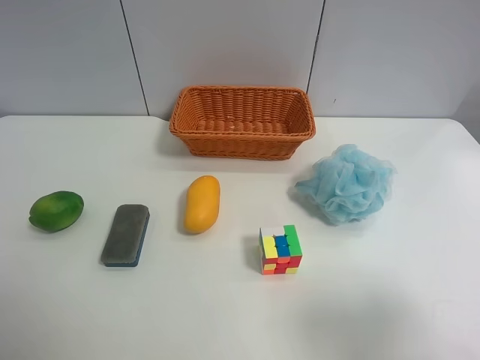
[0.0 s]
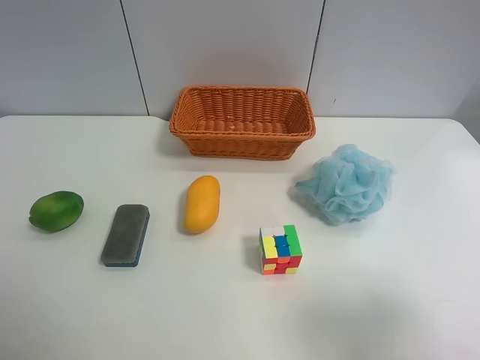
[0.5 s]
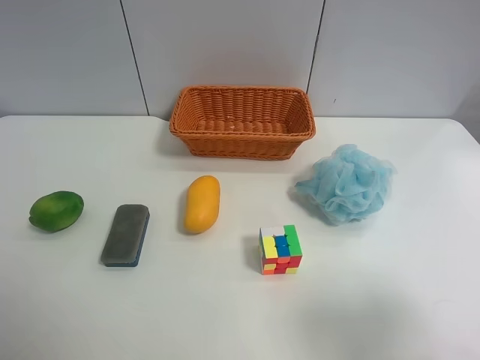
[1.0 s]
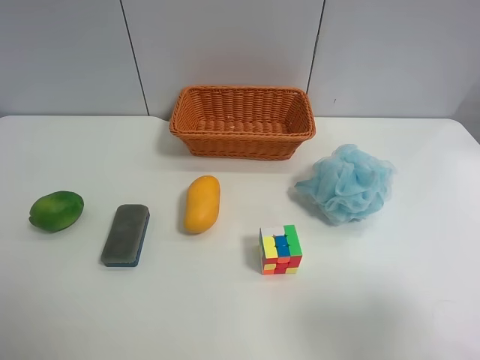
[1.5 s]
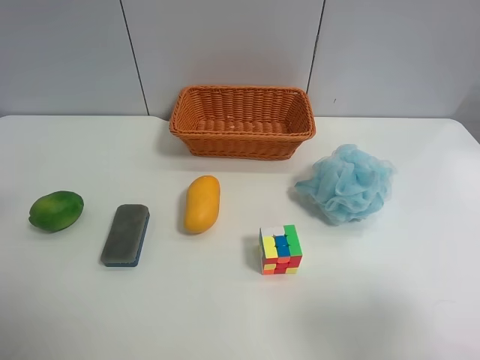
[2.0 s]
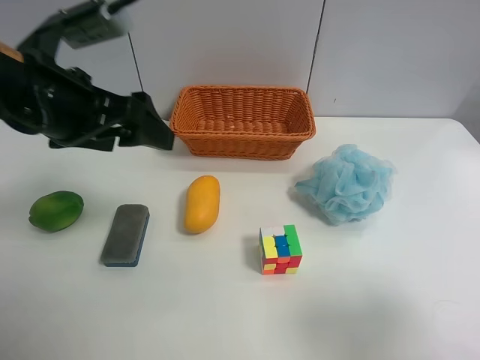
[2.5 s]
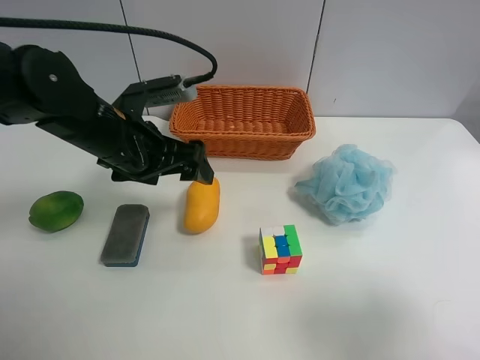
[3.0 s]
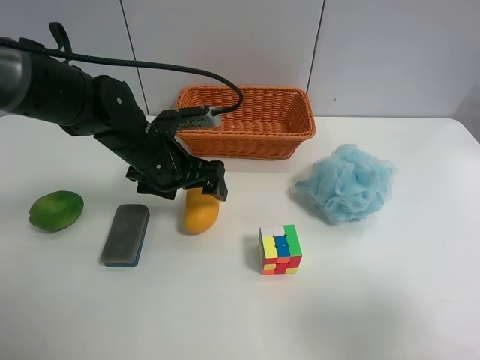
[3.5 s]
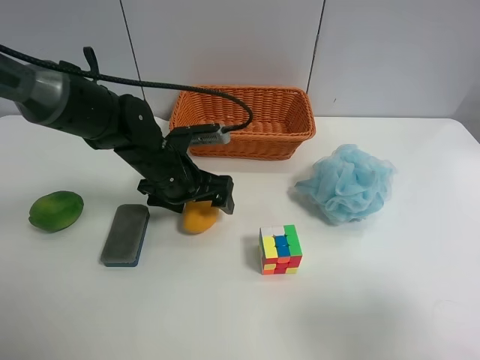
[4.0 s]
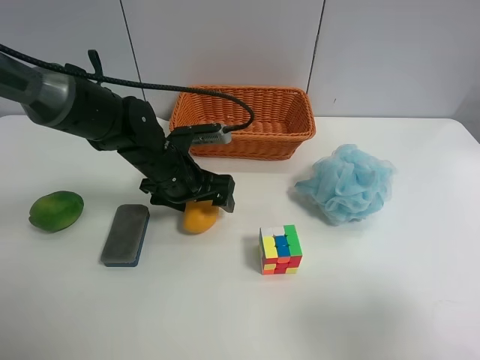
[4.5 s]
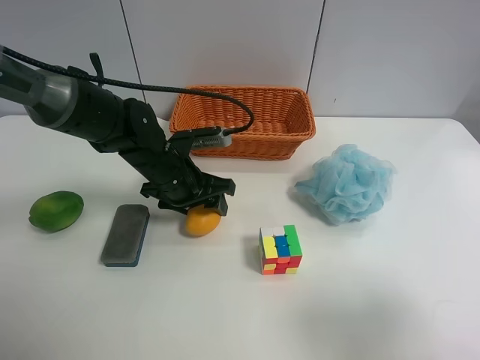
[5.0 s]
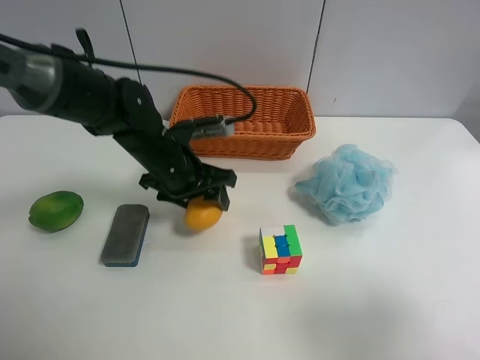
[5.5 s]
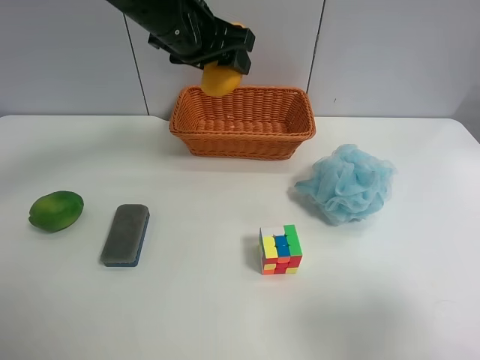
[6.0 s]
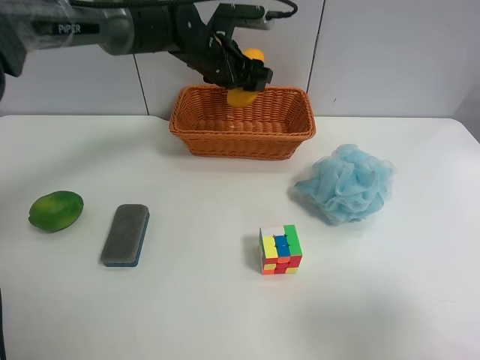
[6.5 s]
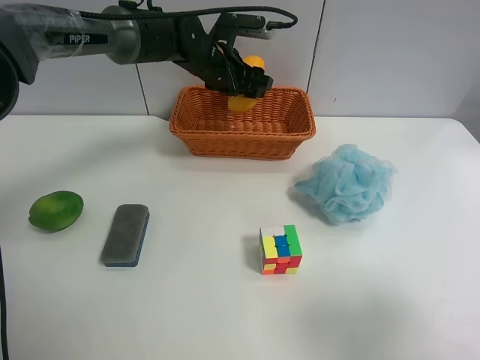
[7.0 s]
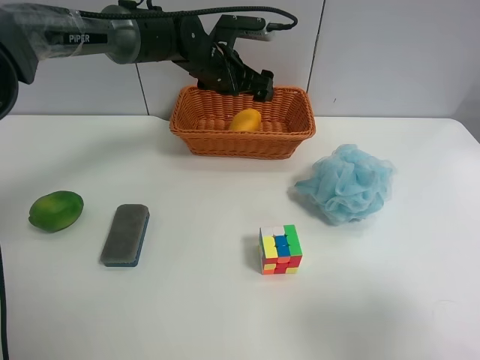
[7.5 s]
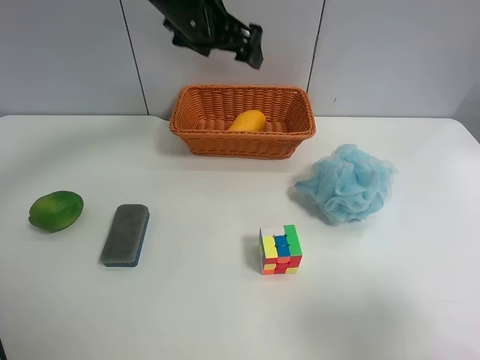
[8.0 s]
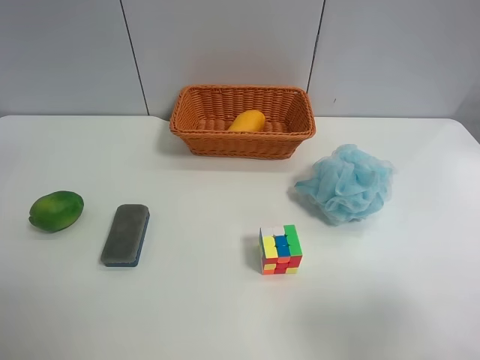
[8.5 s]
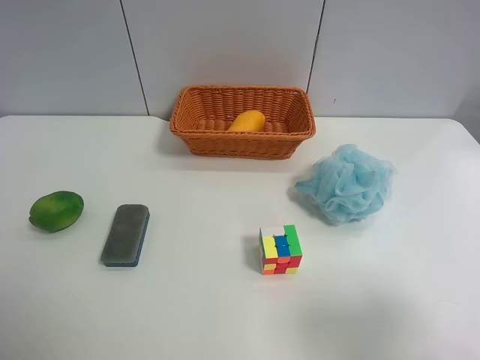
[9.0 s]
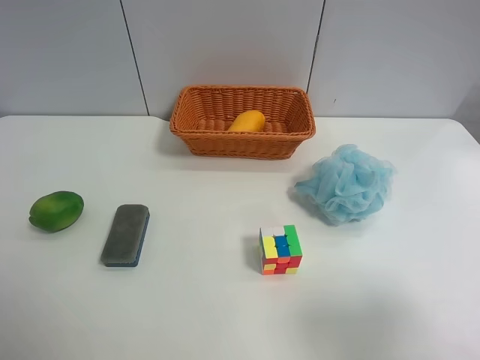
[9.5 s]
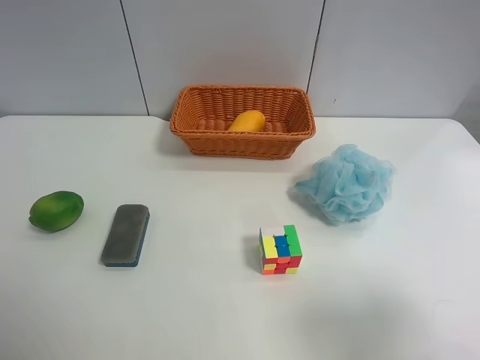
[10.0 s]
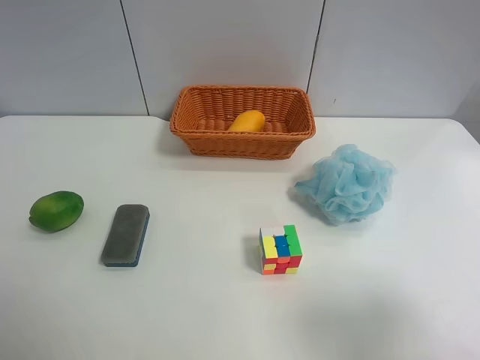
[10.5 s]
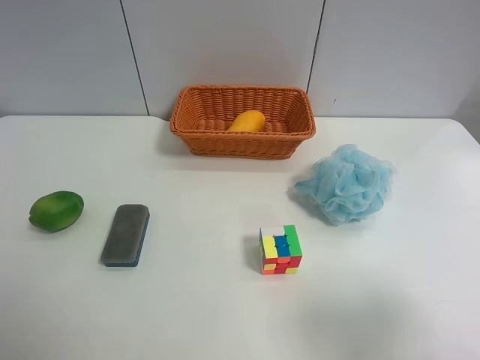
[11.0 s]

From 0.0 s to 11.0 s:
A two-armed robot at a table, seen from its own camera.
Task of the whole recording: Randomly grab green lemon or mangoes from the table and put them in a basket.
Step, from 0.0 s to 5.0 s: Grasp the mango with the left gripper.
Step, from 5.5 s to 7.5 s: Place the mango into the basket with the left gripper.
From 2.0 s to 3.5 s: The left gripper is displaced downward, to the right and forward by approximately 30 cm.
From 3.5 s to 5.5 s: The left gripper closes its fingers.
From 5.5 s to 7.5 s: The left gripper goes roughly 15 cm forward, and opens up.
From 7.5 s to 9.0 s: The left gripper goes about 60 cm backward, to the left and upward.

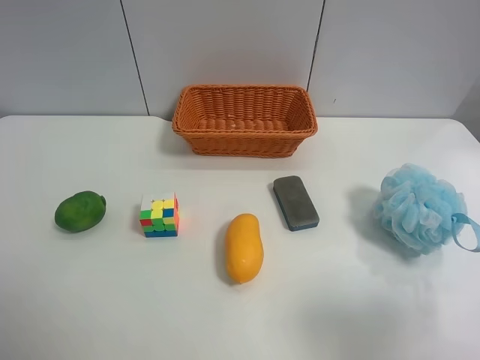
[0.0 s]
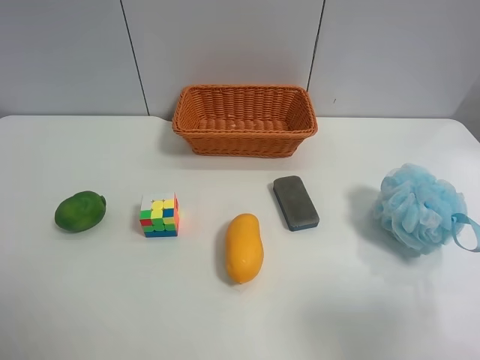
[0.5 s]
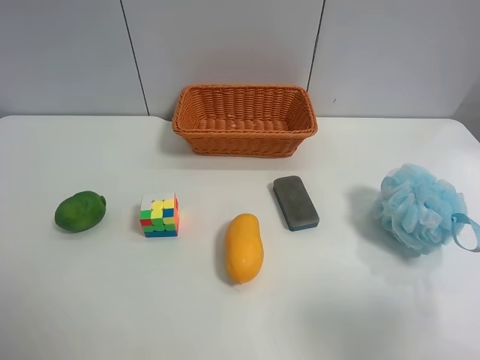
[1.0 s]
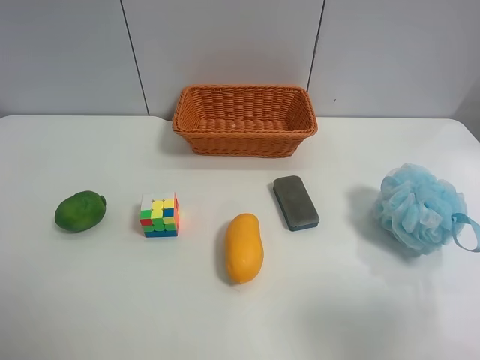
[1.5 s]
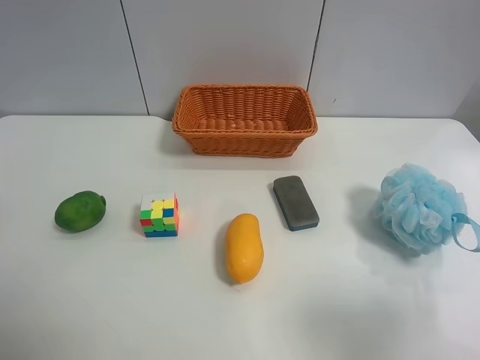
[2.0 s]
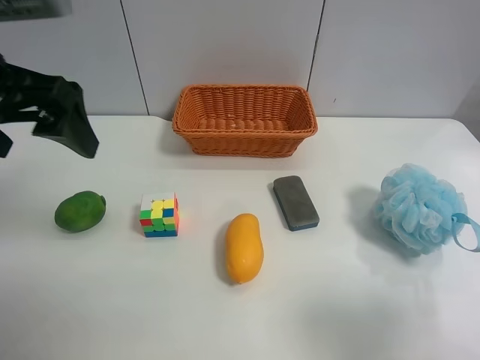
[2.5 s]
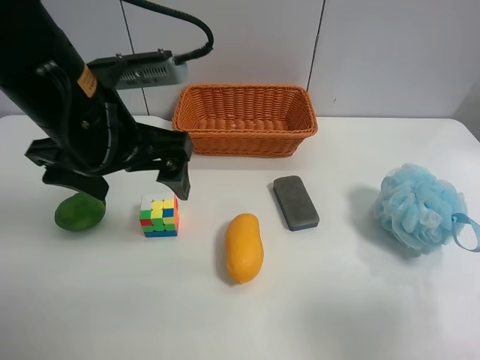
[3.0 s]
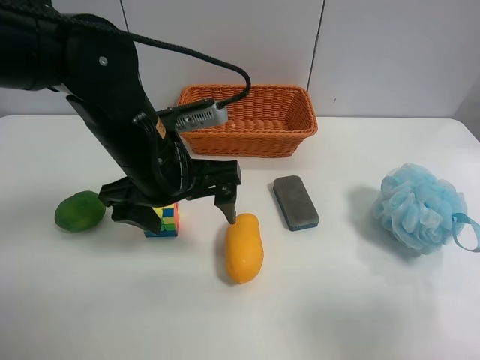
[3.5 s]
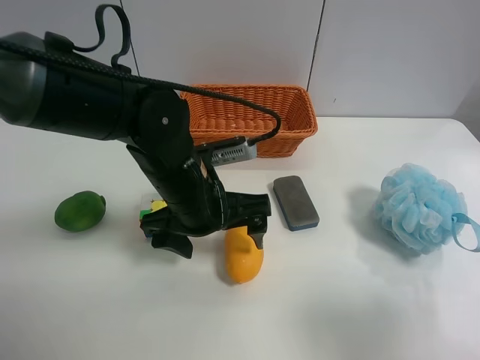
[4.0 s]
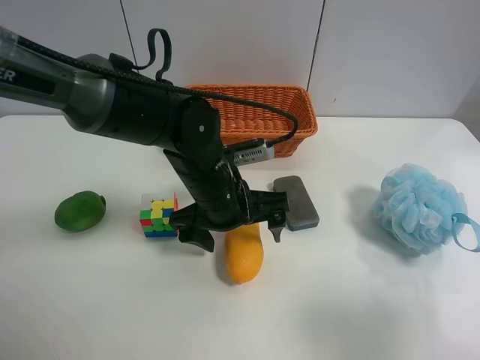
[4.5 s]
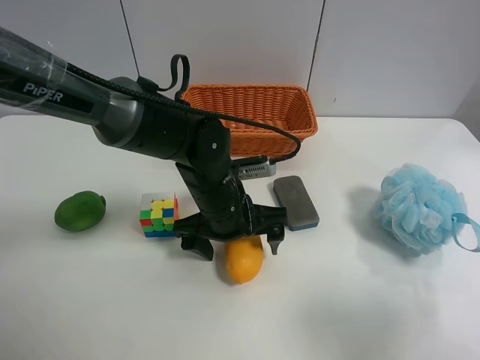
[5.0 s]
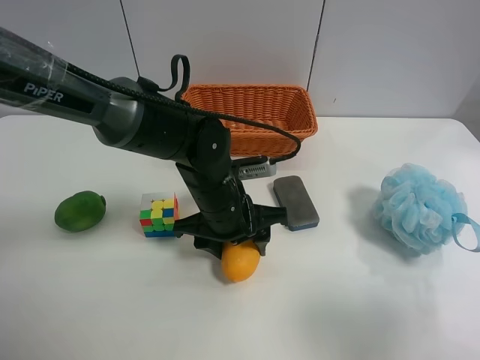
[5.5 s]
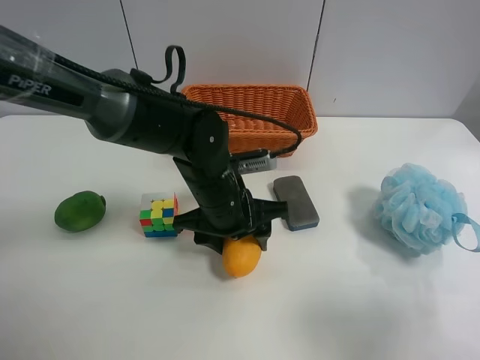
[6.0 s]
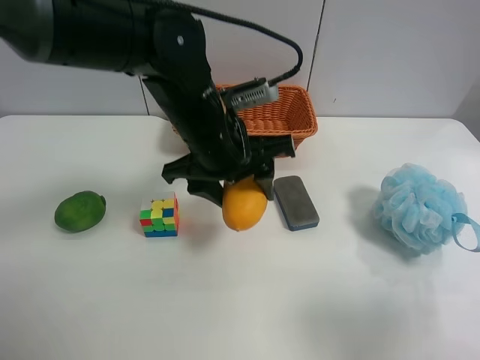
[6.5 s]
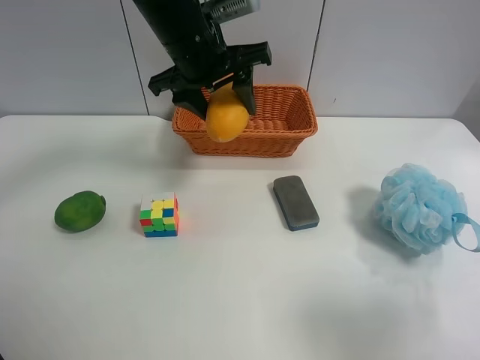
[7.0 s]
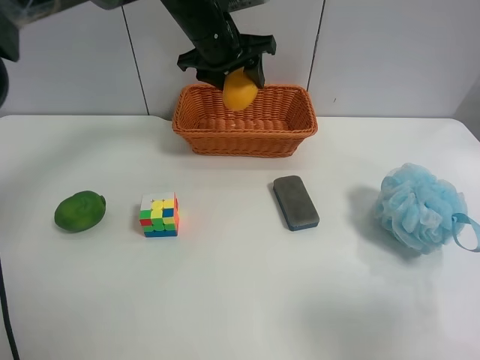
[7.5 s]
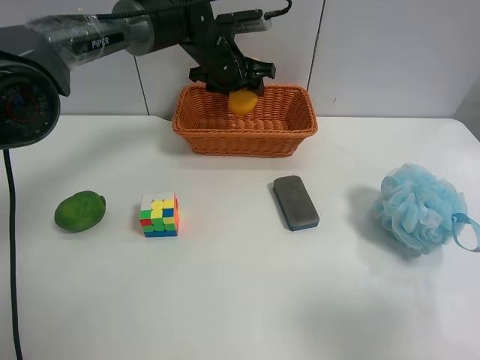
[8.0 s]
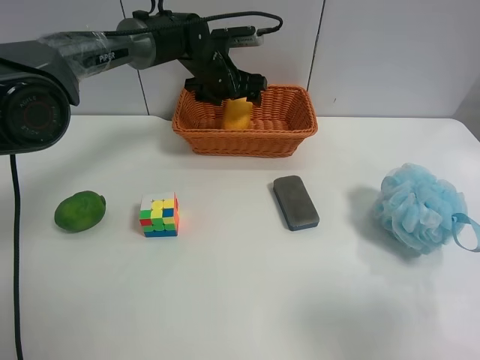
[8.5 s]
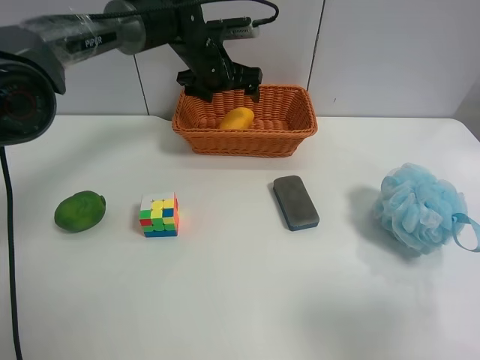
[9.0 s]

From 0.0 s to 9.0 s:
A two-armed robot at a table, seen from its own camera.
Task of the whole recording: Randomly grab green lemon or mangoes from the table and put them in a basket.
Step, from 0.0 s to 5.5 s: Grasp the mango with the left gripper.
From 2.0 s to 4.5 s: The left gripper travels to the right, downward and forward by some 40 cm.
From 4.5 s to 7.0 s: The left gripper moves upward and forward, about 20 cm, and closes.
From 7.0 s to 9.0 s: The left gripper heads forward and downward, covering about 15 cm, and opens.

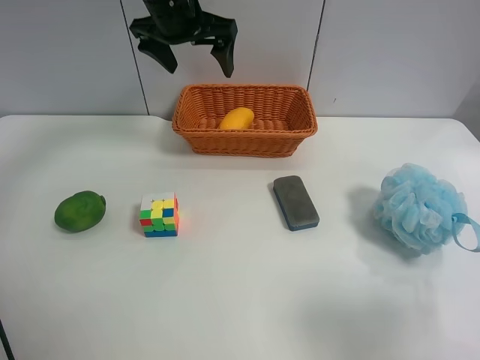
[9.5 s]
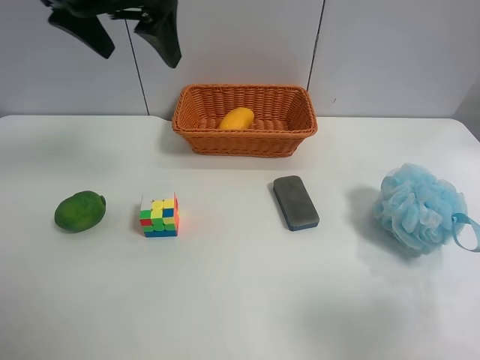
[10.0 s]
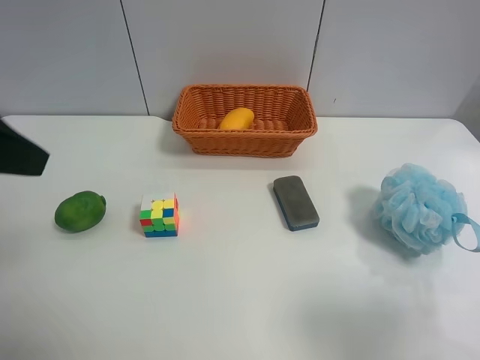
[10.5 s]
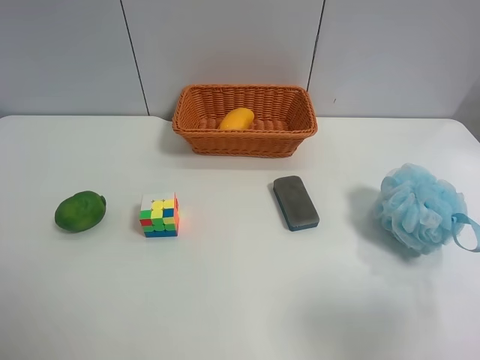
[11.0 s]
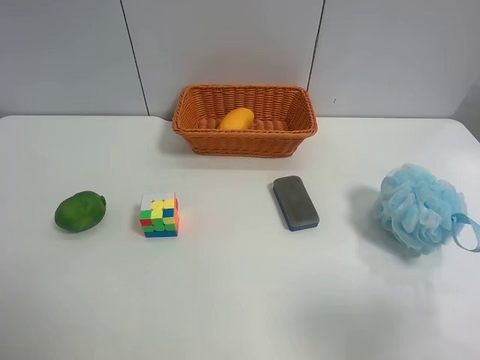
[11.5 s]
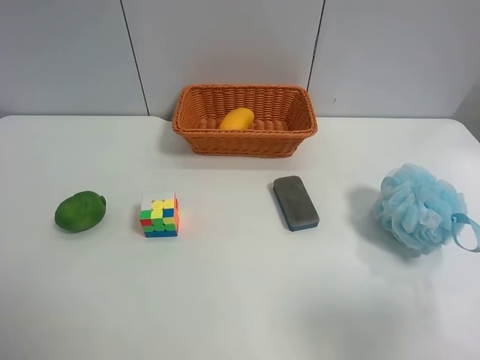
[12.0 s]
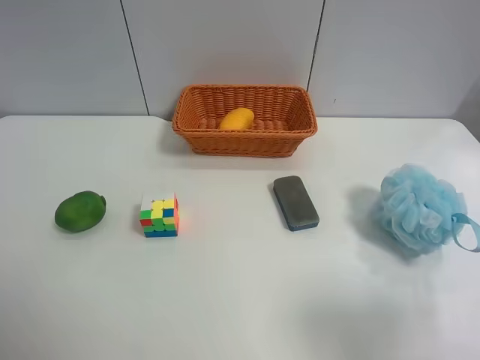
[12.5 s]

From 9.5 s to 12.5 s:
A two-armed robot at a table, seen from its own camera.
Task of the whole recording: Randomly grab green lemon or mangoes from the table and put them in a basket.
From 9.5 s to 11.0 s: The left gripper is displaced backward and to the left by approximately 40 cm.
